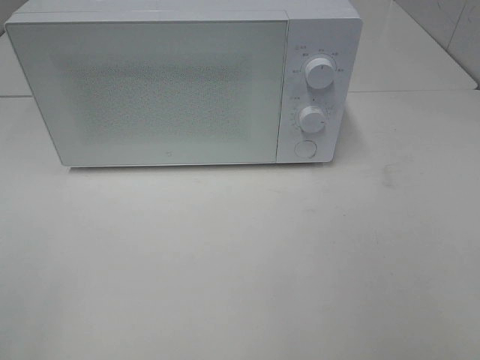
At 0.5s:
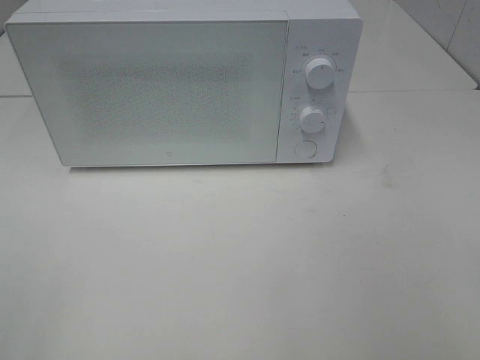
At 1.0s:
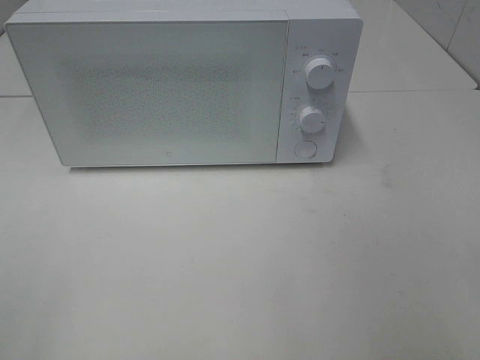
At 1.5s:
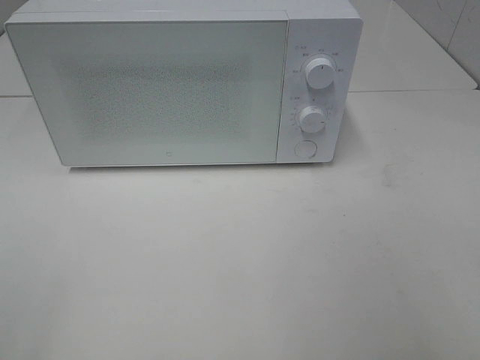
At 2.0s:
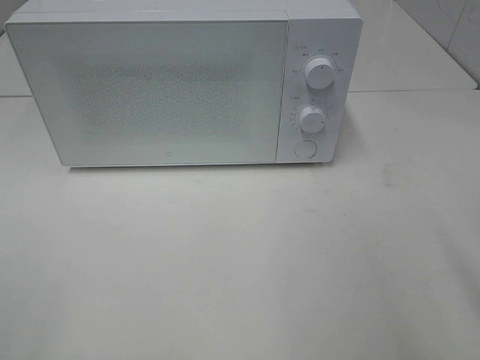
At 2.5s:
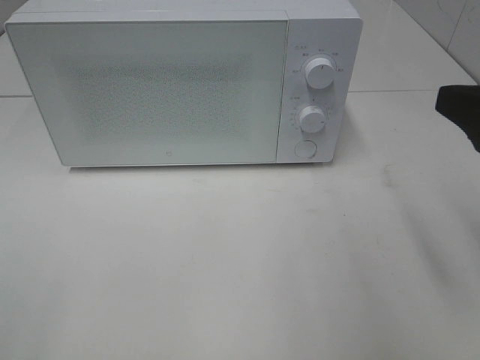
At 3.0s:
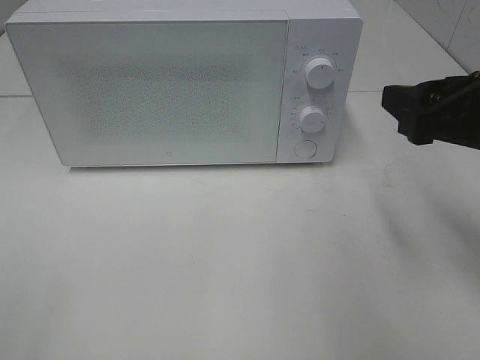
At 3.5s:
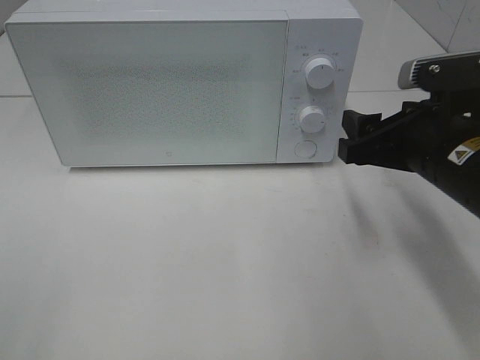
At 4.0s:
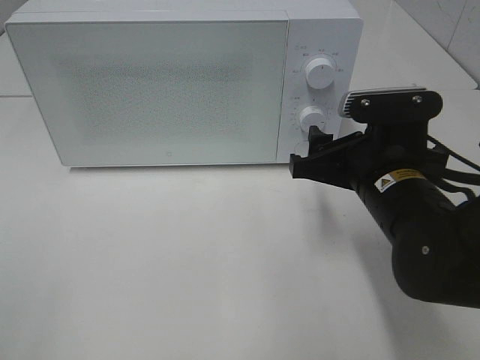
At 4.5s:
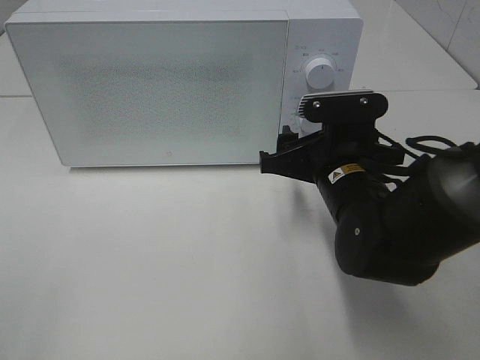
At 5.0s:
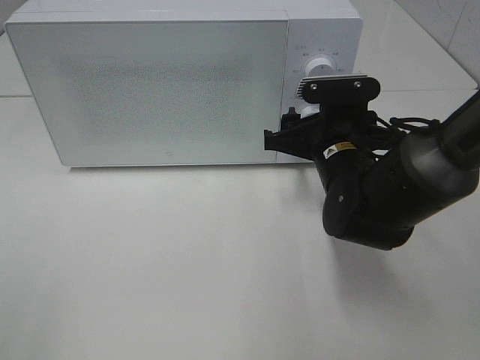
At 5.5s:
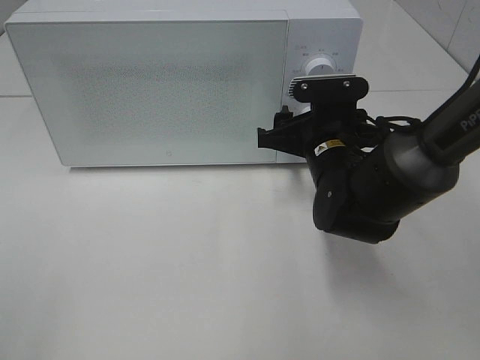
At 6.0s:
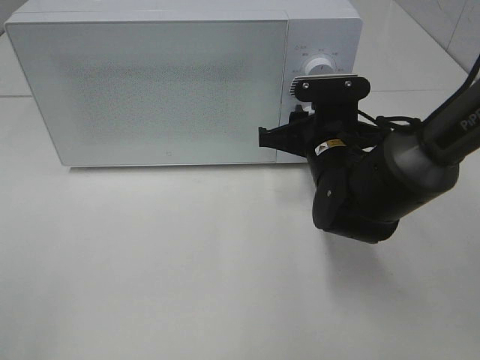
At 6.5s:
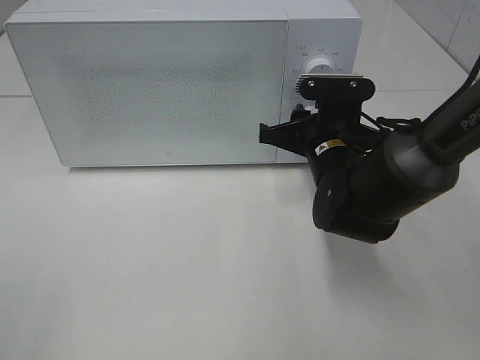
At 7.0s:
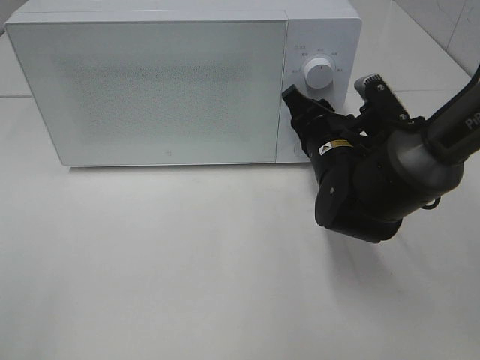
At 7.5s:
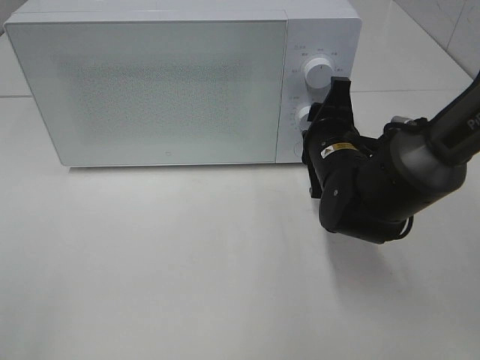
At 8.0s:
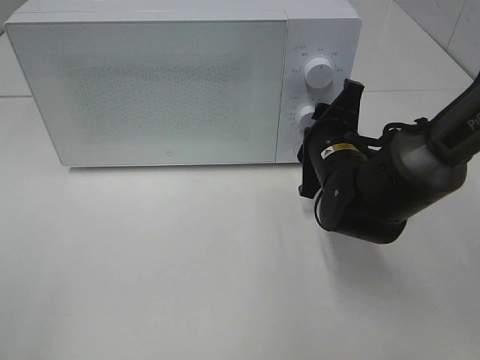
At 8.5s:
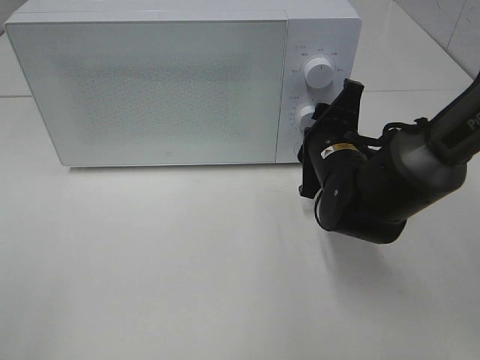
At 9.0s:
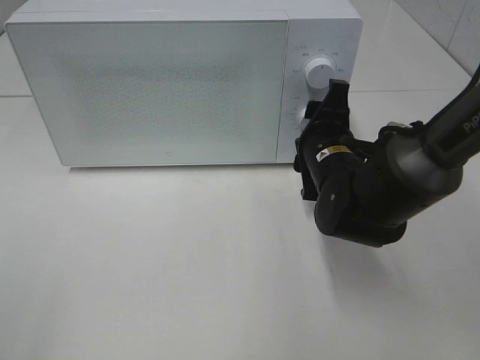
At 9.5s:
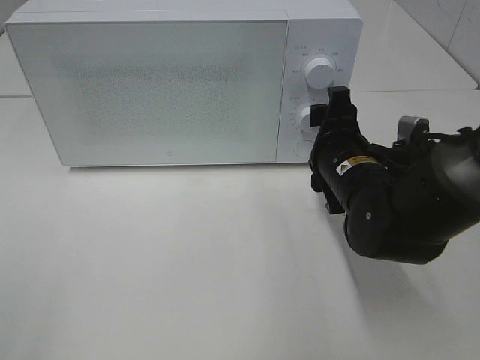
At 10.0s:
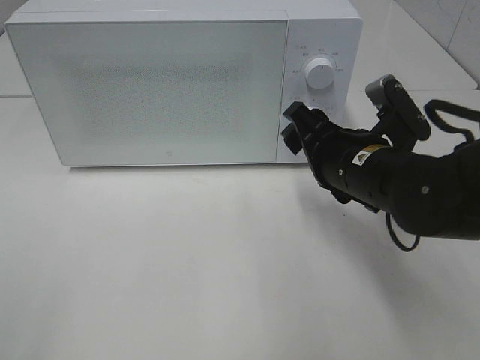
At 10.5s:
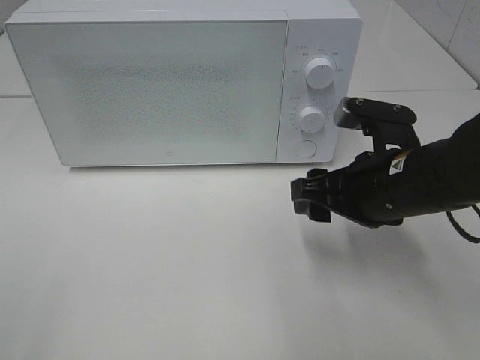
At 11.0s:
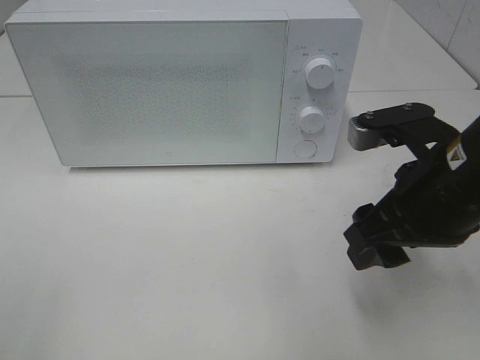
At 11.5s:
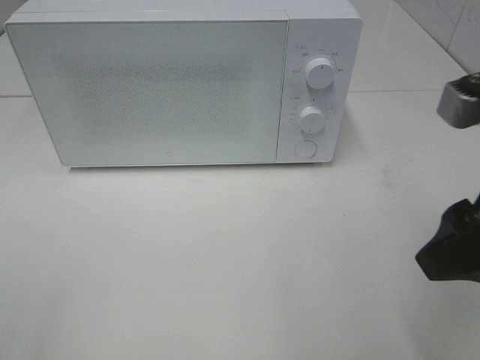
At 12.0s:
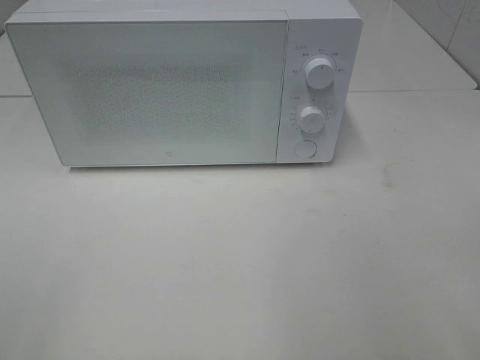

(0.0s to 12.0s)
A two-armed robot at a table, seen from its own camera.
Task of the whole recording: Heat the burger.
Step, 0.0s - 9.0s: Right hand: twist timer button.
2.0s - 4.0s: The right gripper shifts roughly 25 cm forward, downward and to the left.
4.0s - 6.0s: The right gripper heads forward, covering some 10 cm, and closes up.
8.0s - 10.0s: The right gripper moves backward, approximately 5 cm.
10.0s - 12.0s: The right gripper is displaced backward, upward and to the right by approximately 30 cm.

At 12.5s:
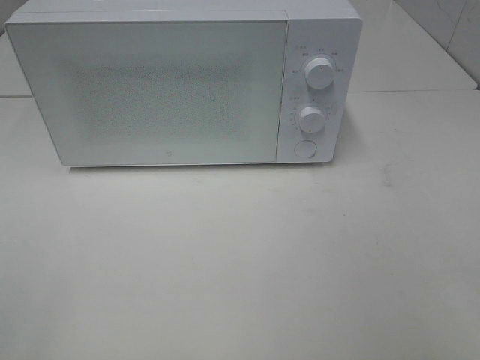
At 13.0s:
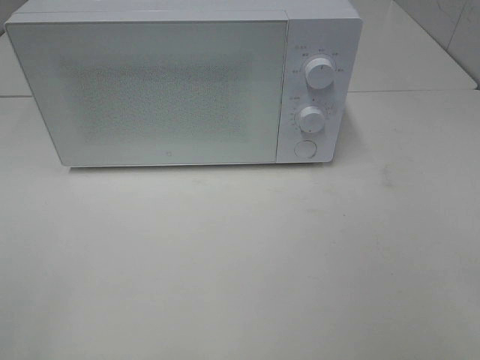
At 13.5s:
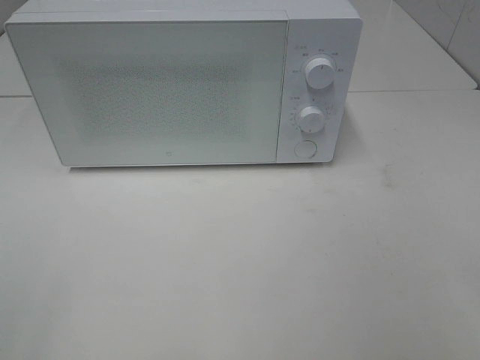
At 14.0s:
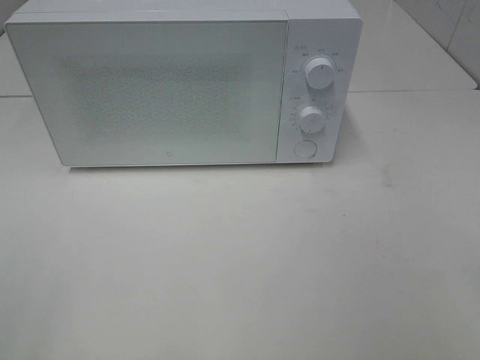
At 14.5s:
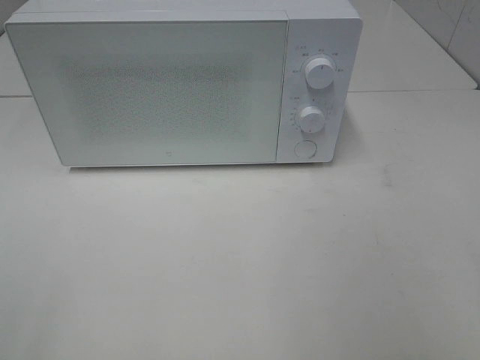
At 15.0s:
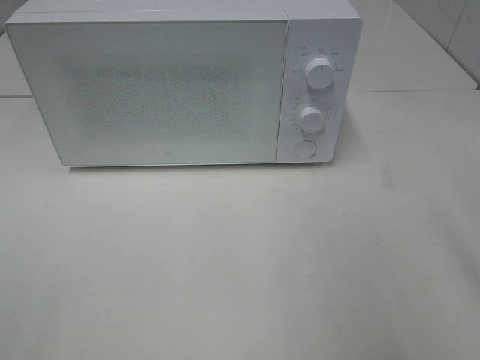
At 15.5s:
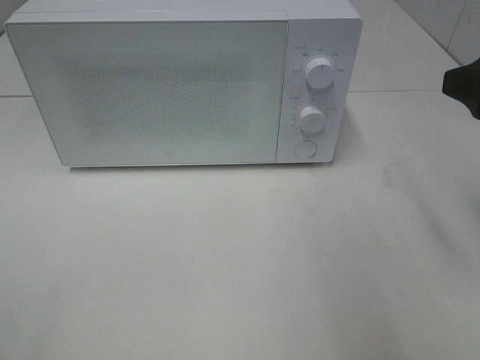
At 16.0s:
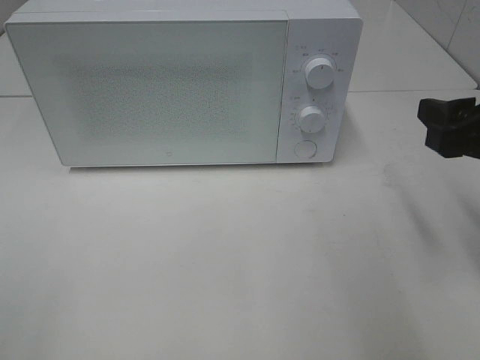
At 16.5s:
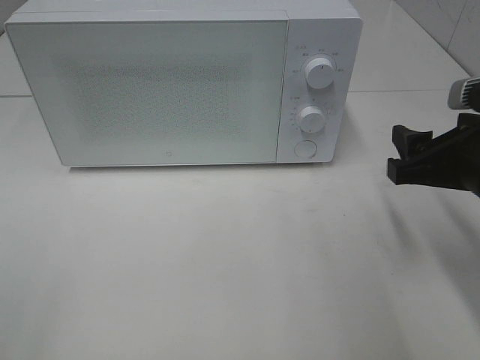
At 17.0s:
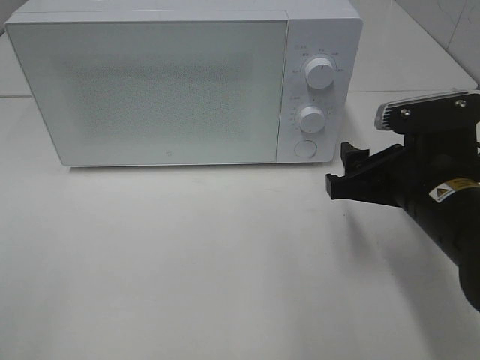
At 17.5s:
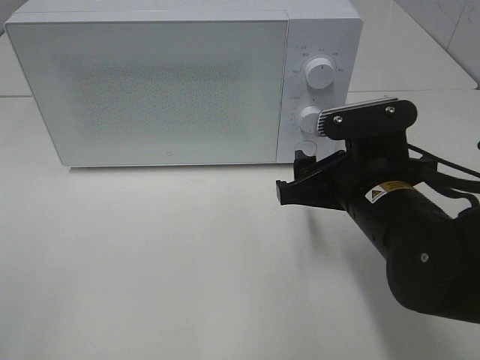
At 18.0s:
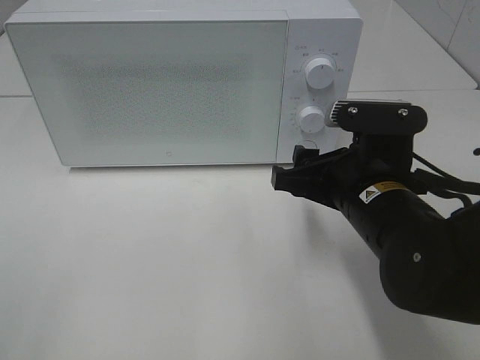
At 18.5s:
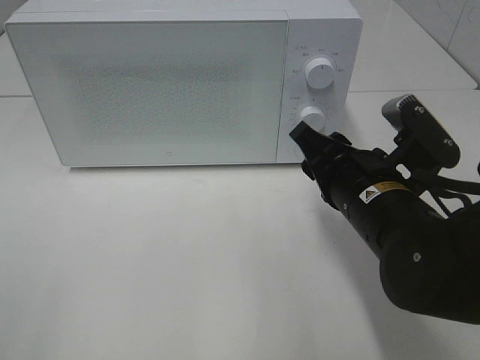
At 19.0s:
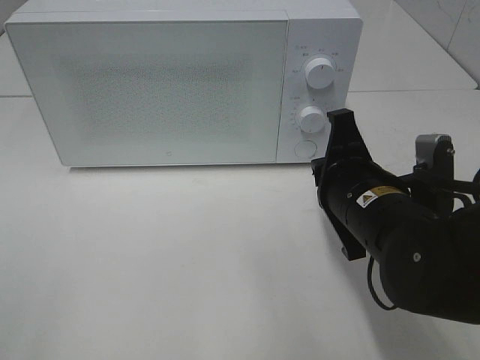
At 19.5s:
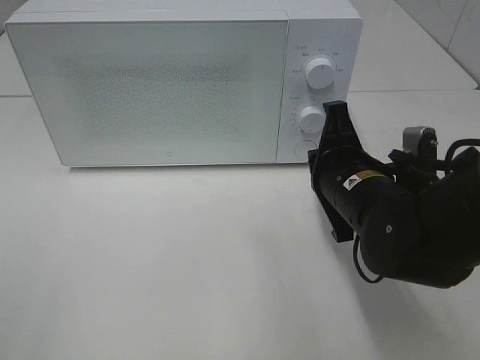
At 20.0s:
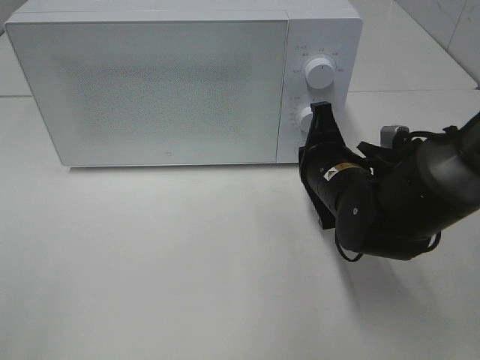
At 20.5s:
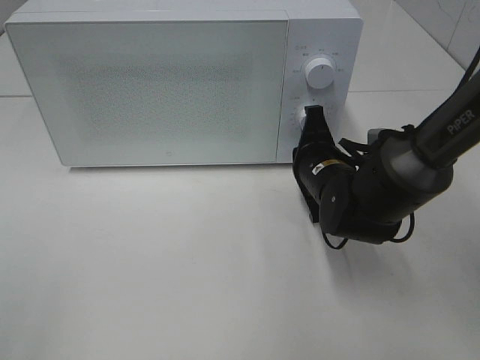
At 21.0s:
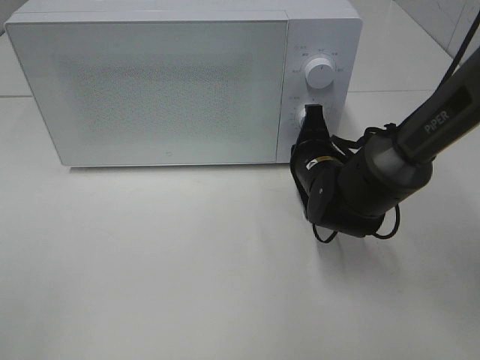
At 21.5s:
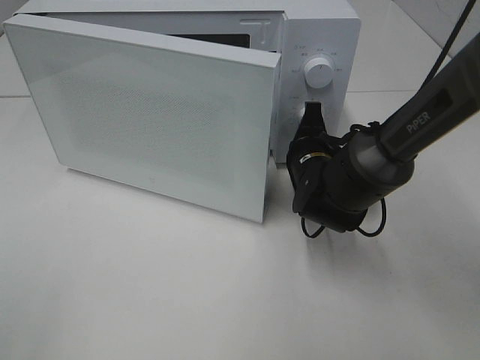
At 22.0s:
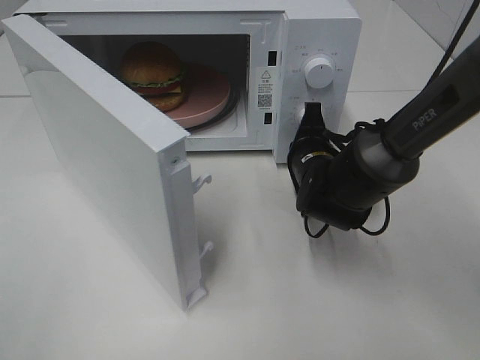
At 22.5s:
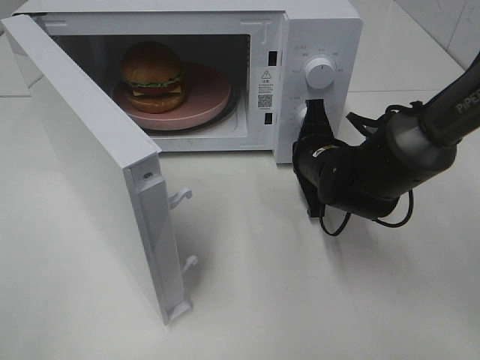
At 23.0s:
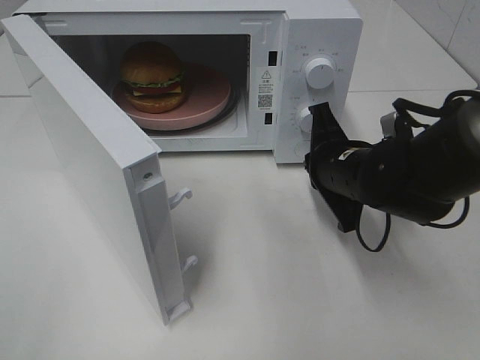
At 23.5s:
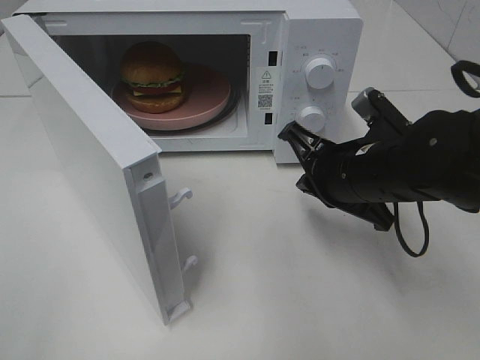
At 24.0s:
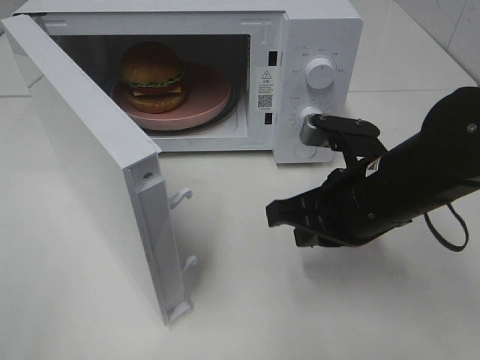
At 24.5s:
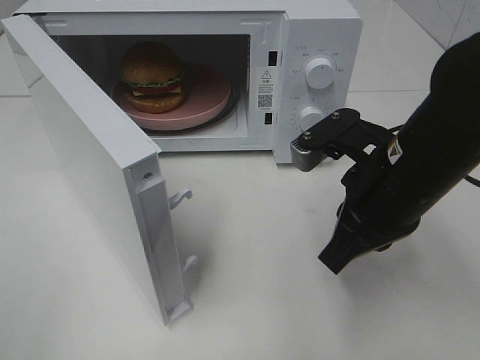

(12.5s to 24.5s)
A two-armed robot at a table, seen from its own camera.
Task of the whole recording: Heat the burger.
Step, 12.5s - 22.5s: Right hand: press the switch.
14.5s - 16.5s: The right gripper is displaced forward and downward by roughly 20 cm.
16.5s - 18.5s: The right gripper shifts some 10 cm to the left.
18.5s - 20.5s: The right gripper is displaced forward and downward by roughly 15 cm, and closes its fingers.
22.5s - 24.5s: The right gripper shifts roughly 15 cm backward and upward.

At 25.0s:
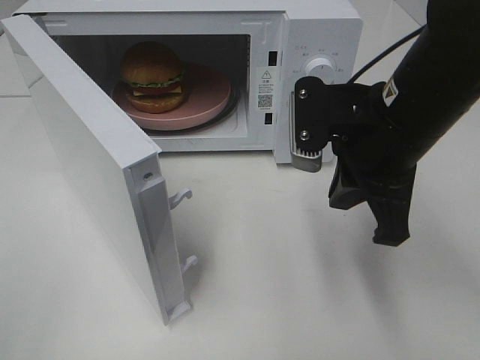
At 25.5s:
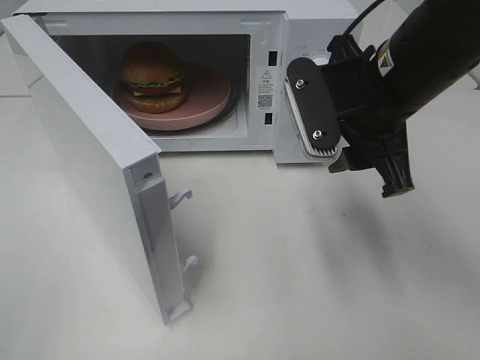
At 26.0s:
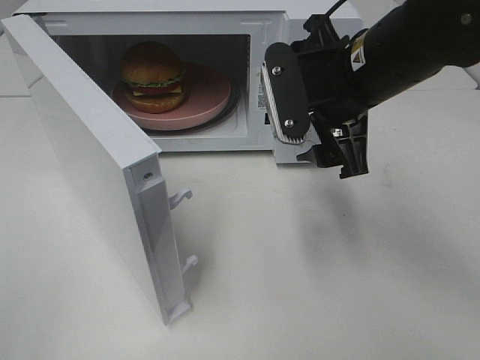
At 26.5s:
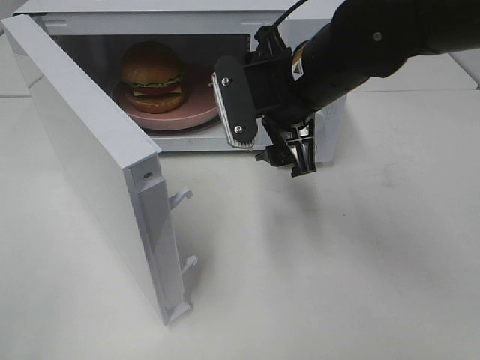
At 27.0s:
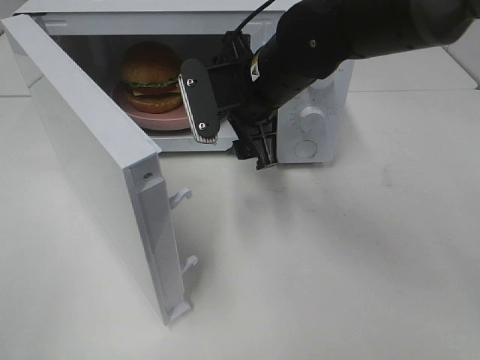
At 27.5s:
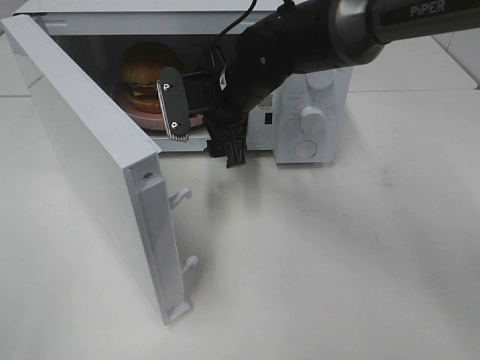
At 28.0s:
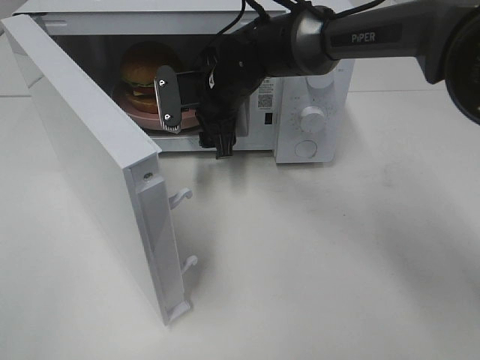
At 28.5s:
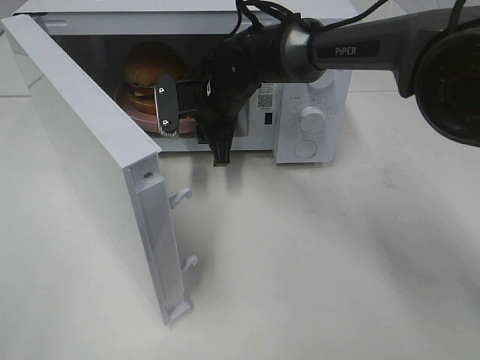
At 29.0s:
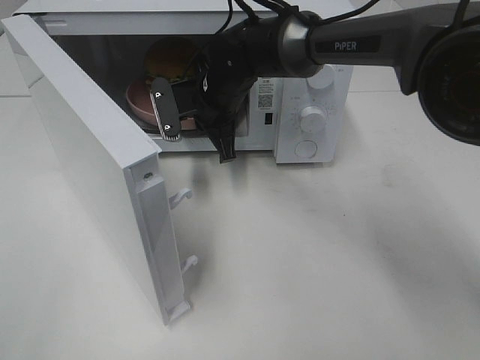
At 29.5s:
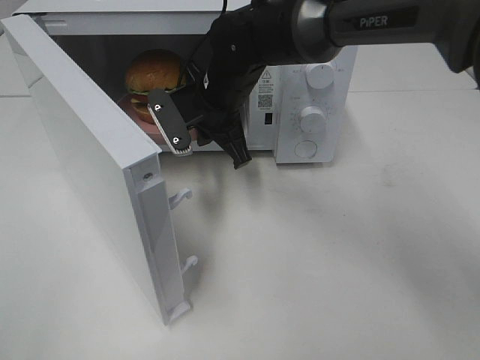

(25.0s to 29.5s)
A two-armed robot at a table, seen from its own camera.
Task of the whole recording: Heat the burger.
Step, 25.0s - 28.5s: Right hand: grab the plate with the hamburger.
25.0s - 27.0s: The right gripper goes about 15 cm forward and to the left, and opens its fingers.
27.0s - 29.5s: The right gripper is displaced forward by roughly 5 cm, and closes.
